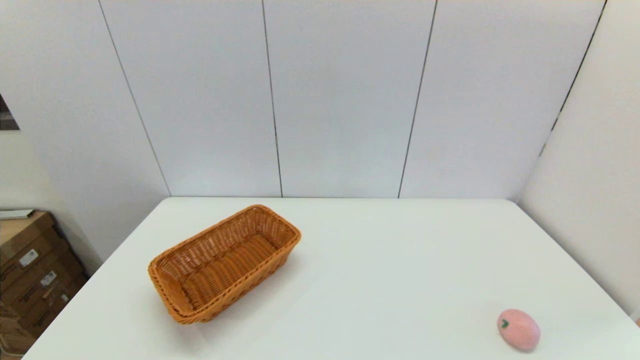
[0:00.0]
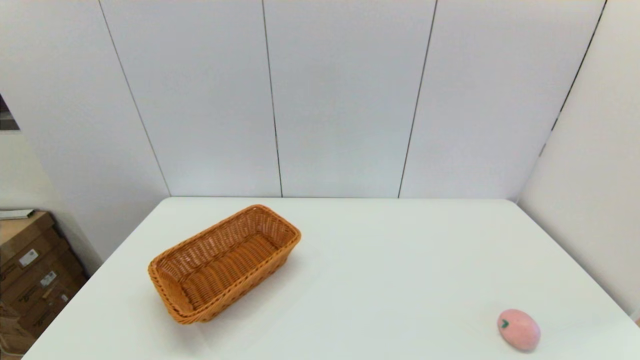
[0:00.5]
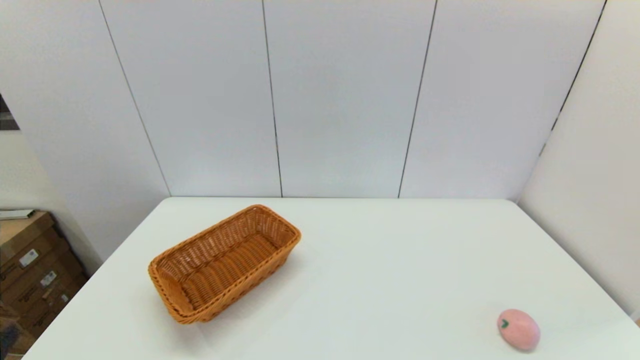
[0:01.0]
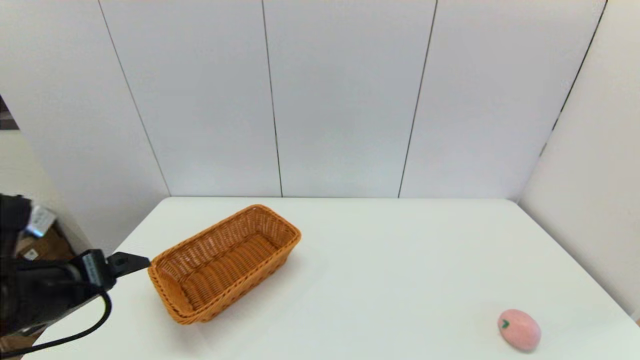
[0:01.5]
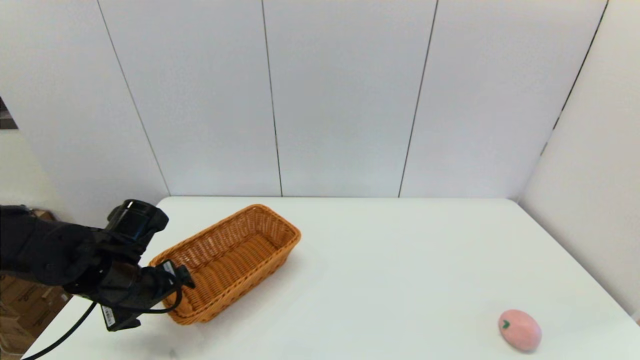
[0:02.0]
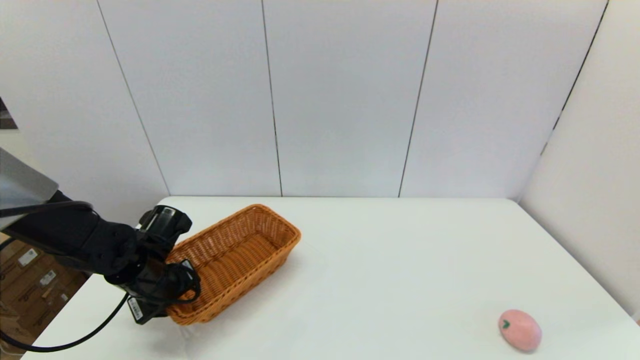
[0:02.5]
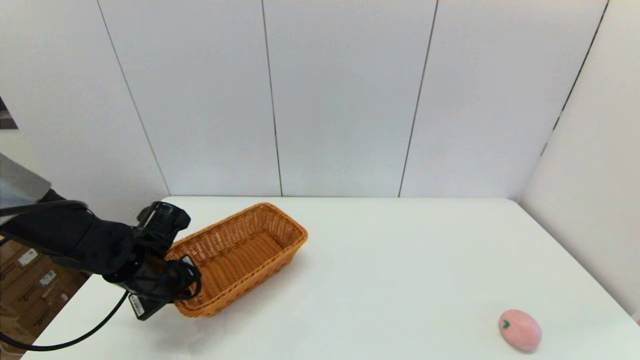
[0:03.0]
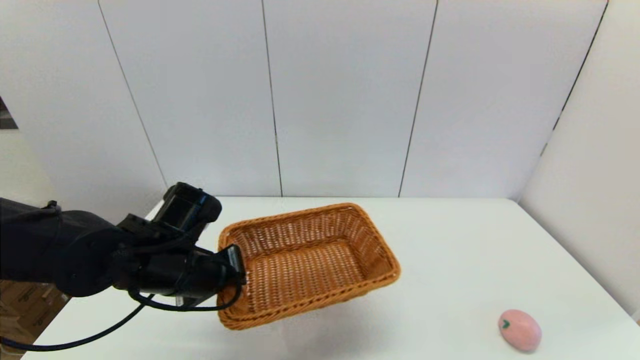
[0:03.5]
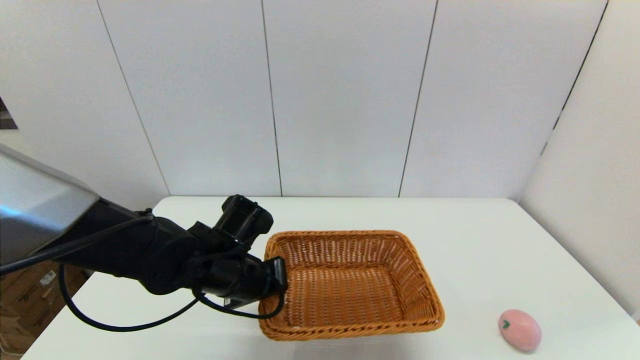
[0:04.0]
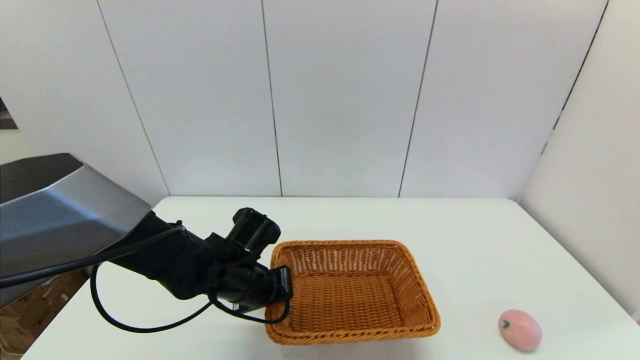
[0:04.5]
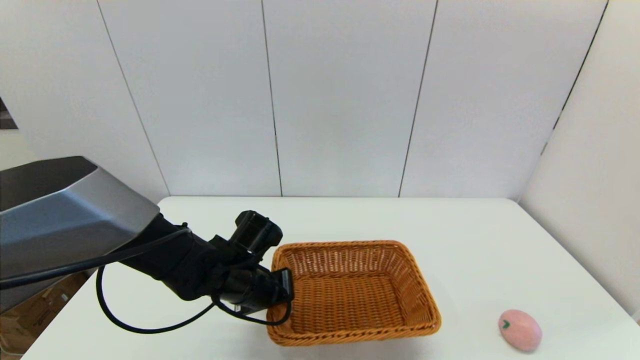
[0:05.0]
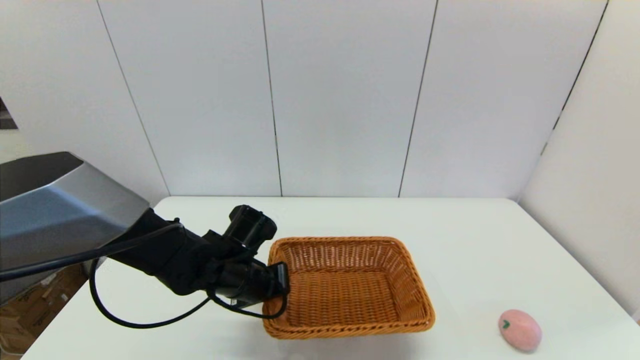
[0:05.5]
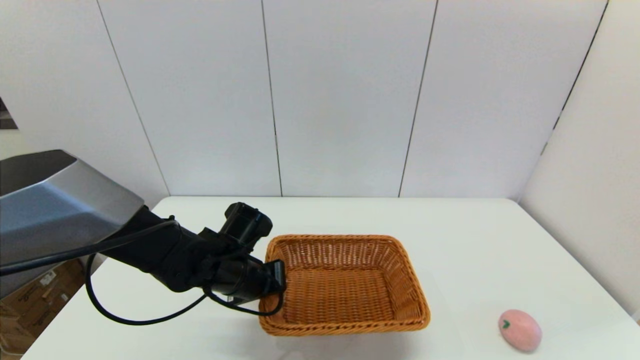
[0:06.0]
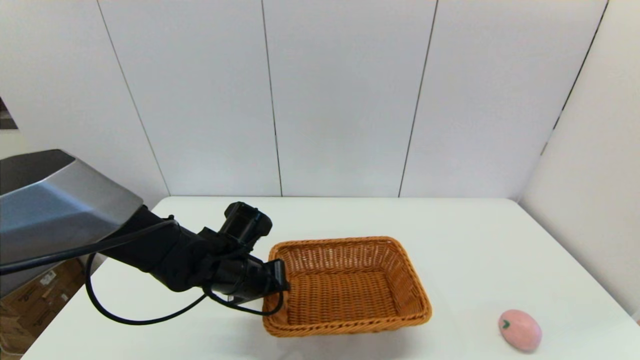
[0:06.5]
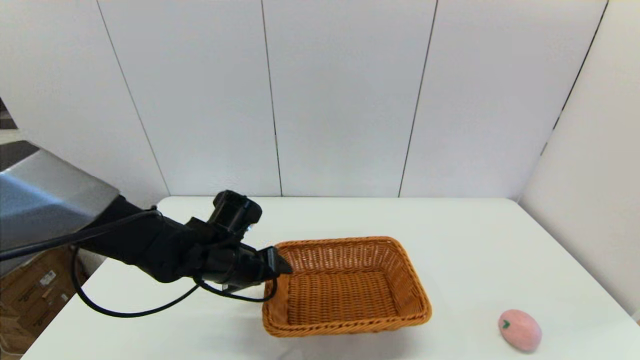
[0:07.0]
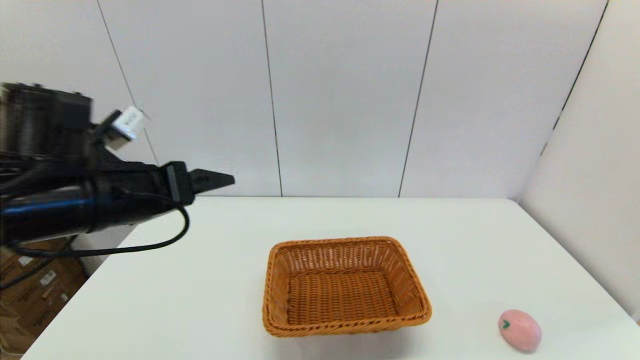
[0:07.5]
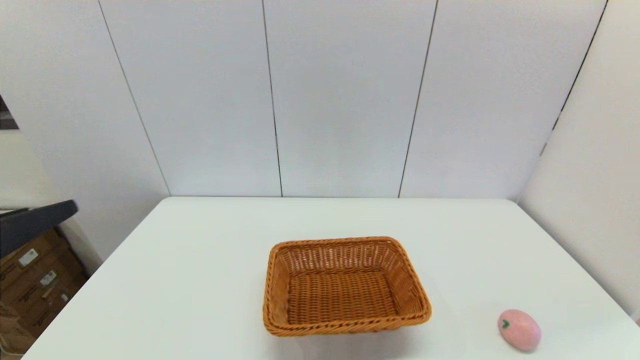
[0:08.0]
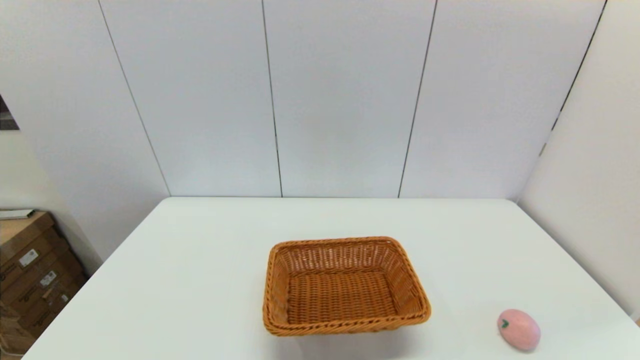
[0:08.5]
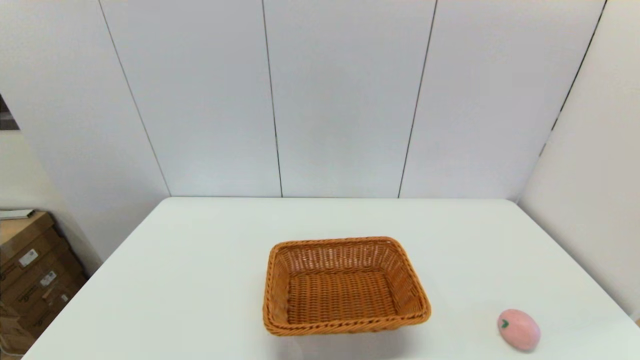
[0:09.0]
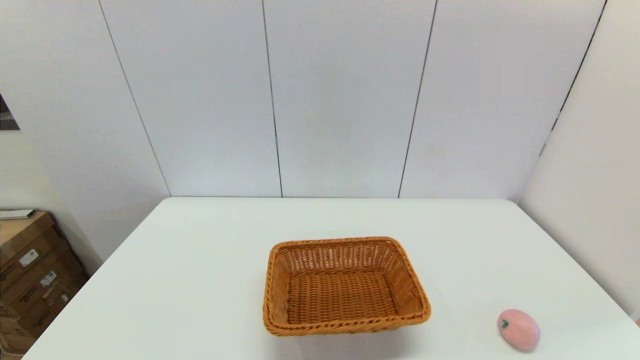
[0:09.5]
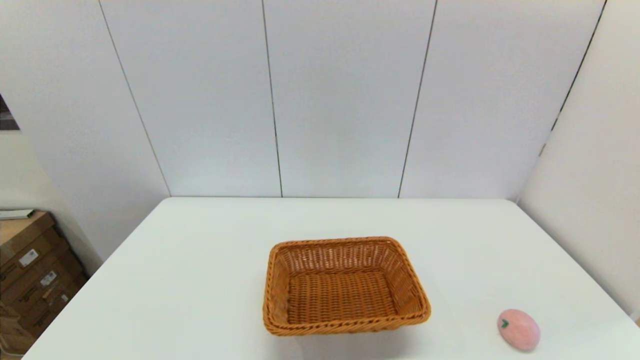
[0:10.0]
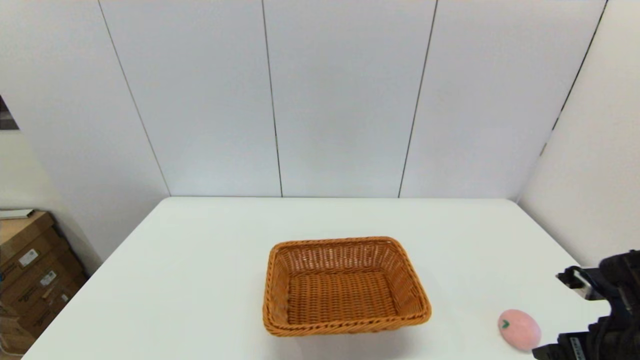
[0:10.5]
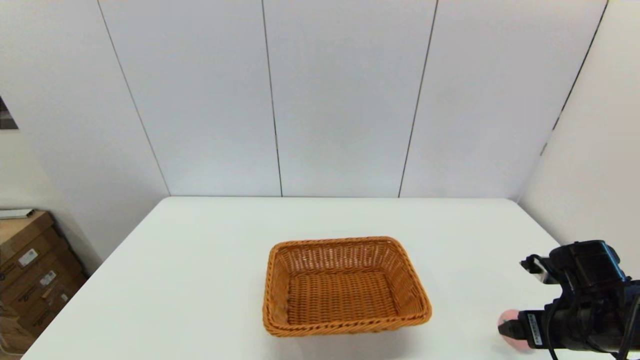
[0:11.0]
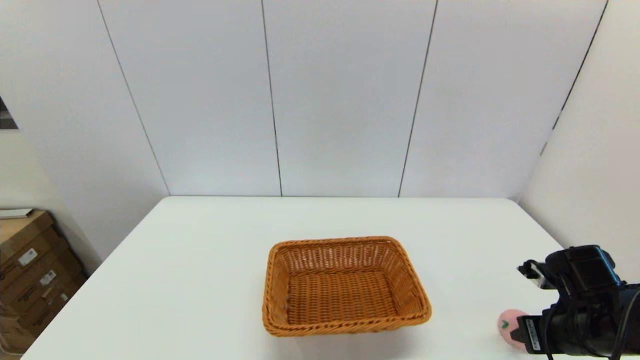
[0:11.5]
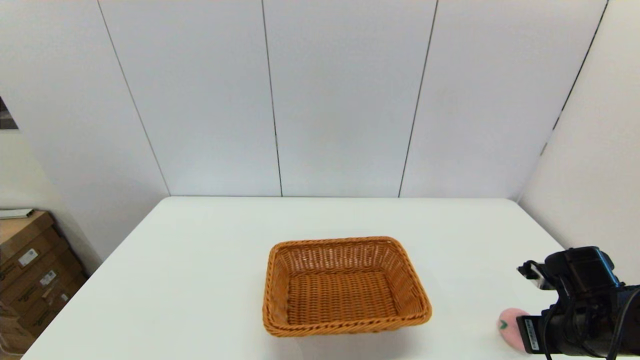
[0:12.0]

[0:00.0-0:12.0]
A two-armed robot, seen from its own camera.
Step, 0:00.0 to 0:02.5: Grasp the light basket with the left gripper.
Step, 0:03.0 to 0:06.5: Place the light basket on the middle of the table with the left gripper.
Step, 0:07.0 to 0:11.5: Grasp the peach with the right gripper.
0:00.0 to 0:02.0: The left gripper shifts roughly 30 cm forward.
0:02.0 to 0:04.0: The left gripper travels to the right by roughly 15 cm, and closes up.
0:04.0 to 0:06.0: The grippers move only a little.
0:06.0 to 0:08.0: The left gripper heads backward, upward and to the left, covering some 35 cm, and opens up.
0:08.0 to 0:10.0: The left gripper shifts approximately 20 cm downward and backward.
0:10.0 to 0:12.0: The right gripper is displaced forward and downward by roughly 20 cm, and closes.

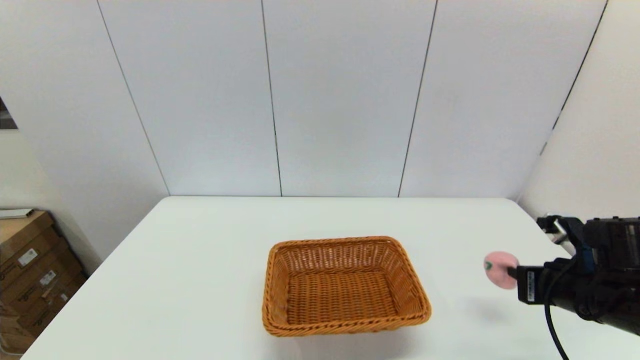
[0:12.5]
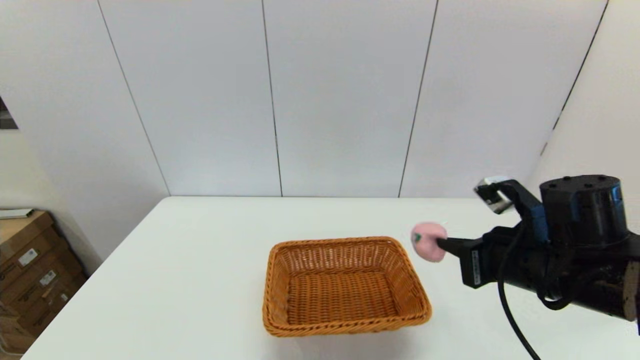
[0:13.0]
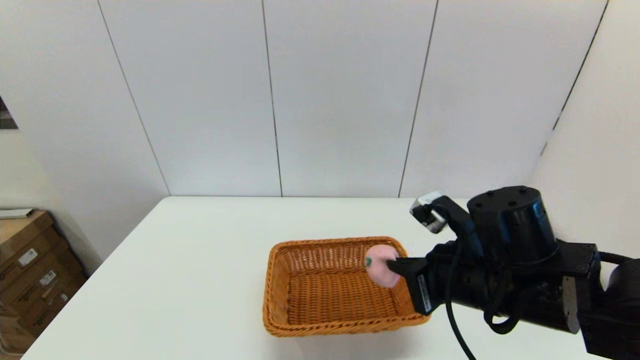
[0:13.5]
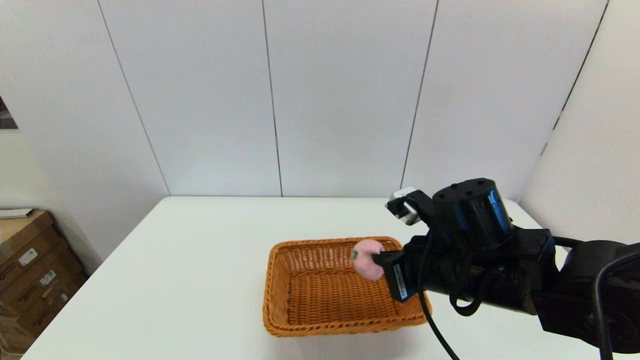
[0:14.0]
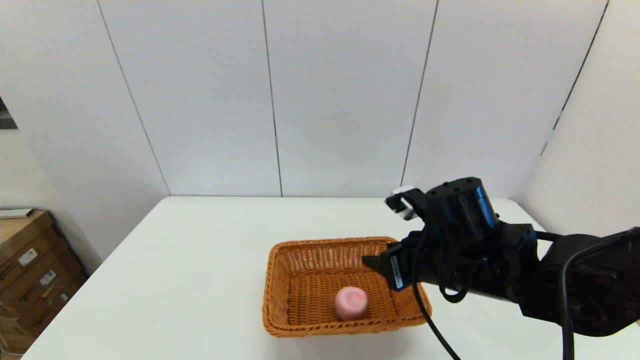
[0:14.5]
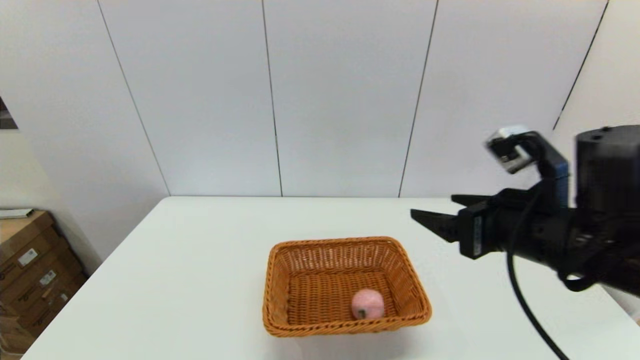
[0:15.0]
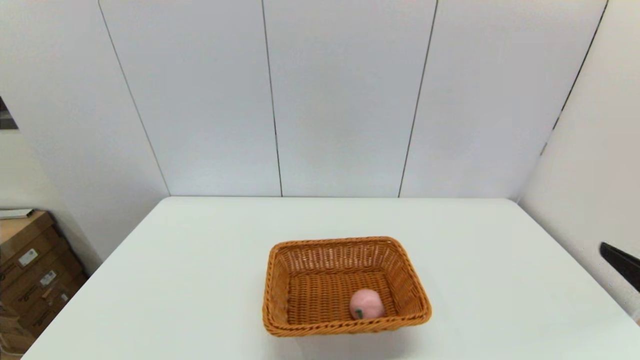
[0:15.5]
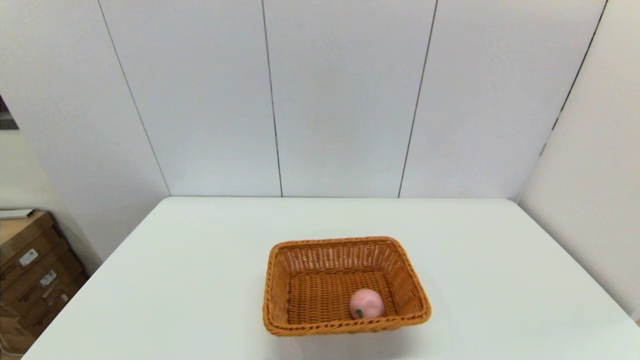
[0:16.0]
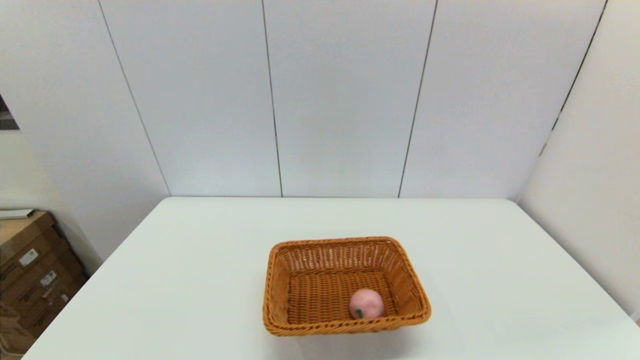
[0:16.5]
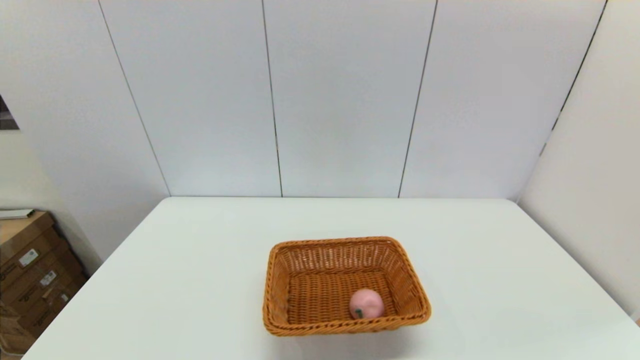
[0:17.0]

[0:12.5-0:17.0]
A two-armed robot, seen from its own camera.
Step, 0:12.5 to 0:14.0: Place the peach into the light basket with the right gripper.
0:12.5 to 0:14.5: The right gripper heads to the left, covering about 15 cm, and opens.
0:14.5 to 0:17.0: The right gripper travels backward and to the right by some 35 cm, and opens its fingers.
